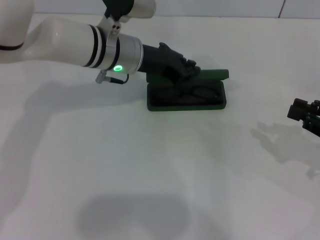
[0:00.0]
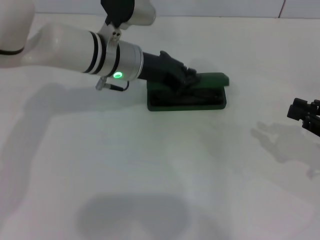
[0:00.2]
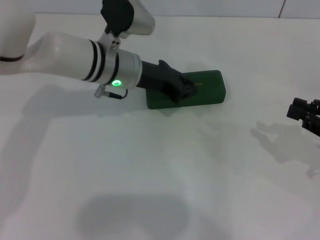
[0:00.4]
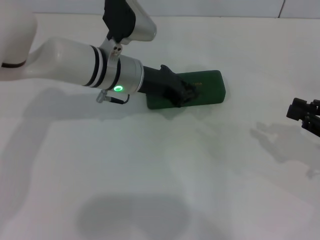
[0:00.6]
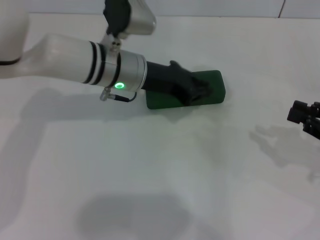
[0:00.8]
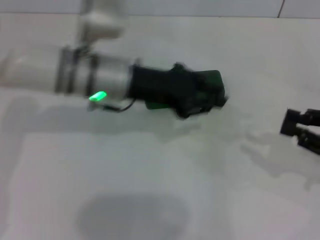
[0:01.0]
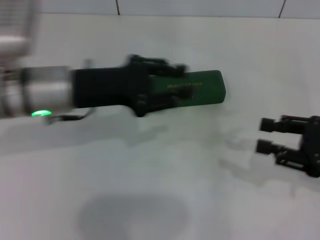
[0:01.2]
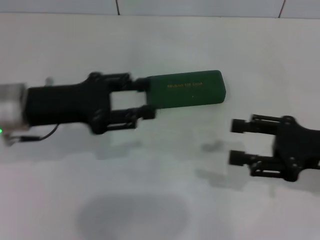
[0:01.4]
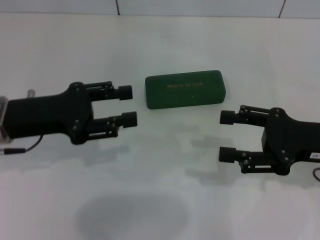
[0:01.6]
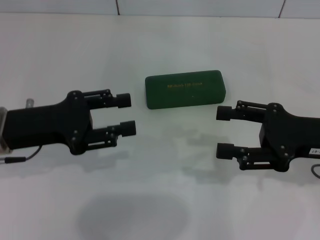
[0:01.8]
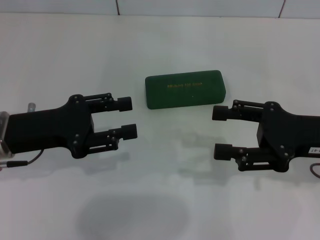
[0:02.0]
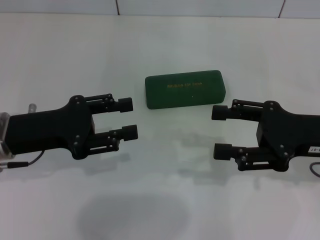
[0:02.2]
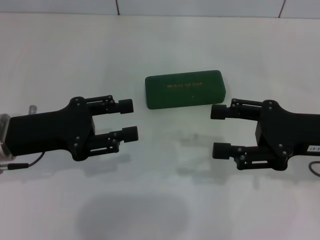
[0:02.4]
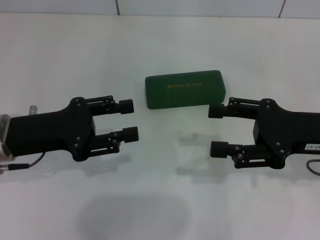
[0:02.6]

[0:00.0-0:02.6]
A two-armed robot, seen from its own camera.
0.0 to 1.2 s: The left gripper travels backward and to the left by some 15 cm.
1.2 to 2.6 s: Both grippers move to the left, about 5 cm. The right gripper opens its fingers.

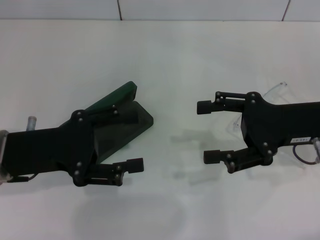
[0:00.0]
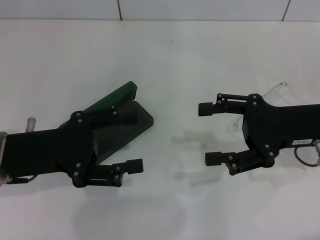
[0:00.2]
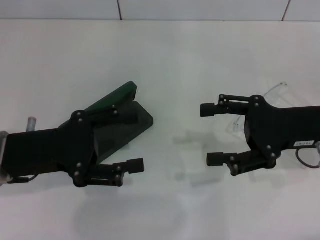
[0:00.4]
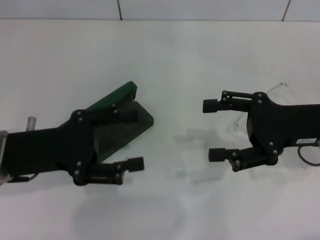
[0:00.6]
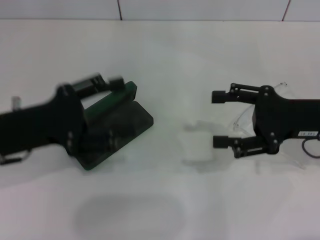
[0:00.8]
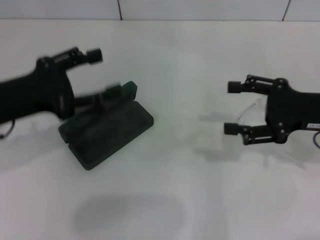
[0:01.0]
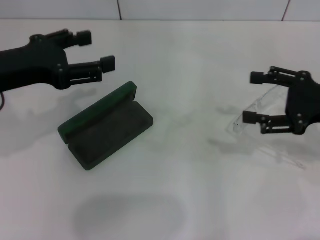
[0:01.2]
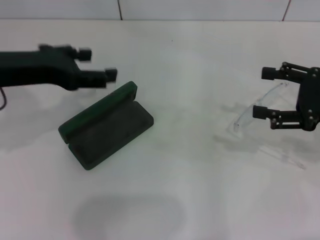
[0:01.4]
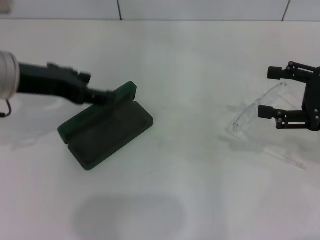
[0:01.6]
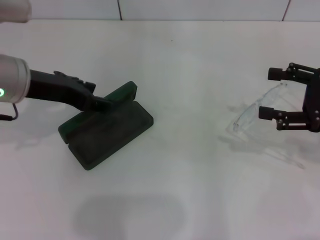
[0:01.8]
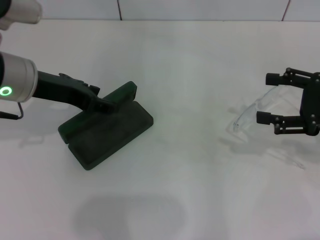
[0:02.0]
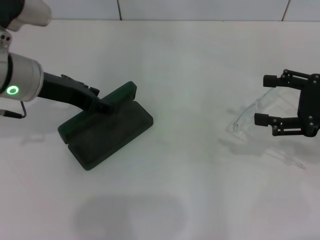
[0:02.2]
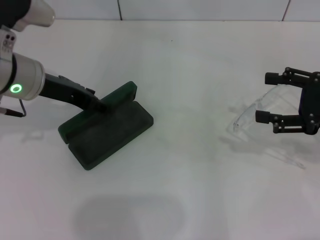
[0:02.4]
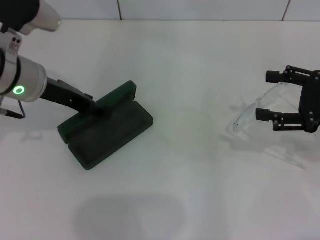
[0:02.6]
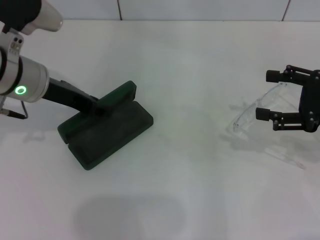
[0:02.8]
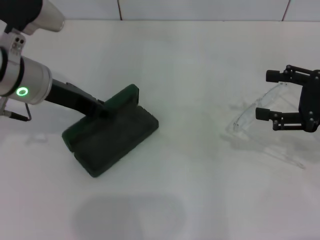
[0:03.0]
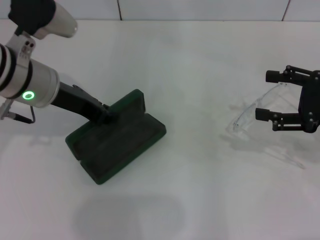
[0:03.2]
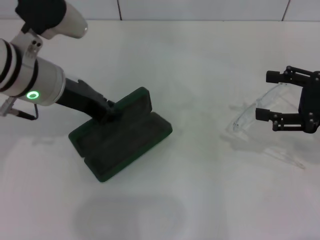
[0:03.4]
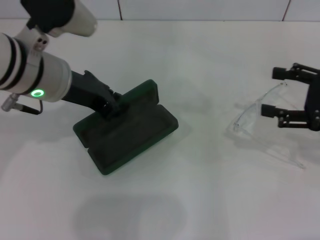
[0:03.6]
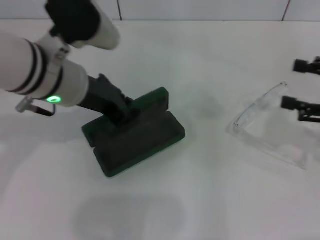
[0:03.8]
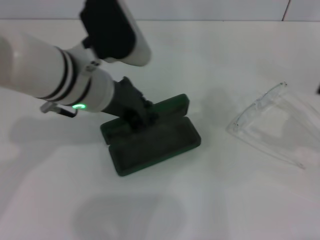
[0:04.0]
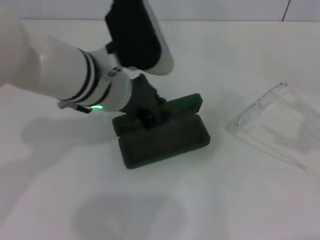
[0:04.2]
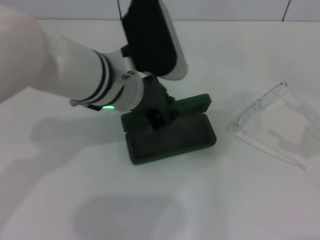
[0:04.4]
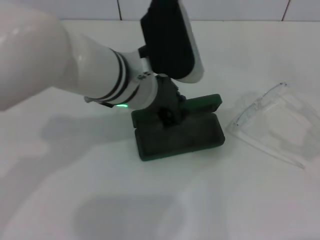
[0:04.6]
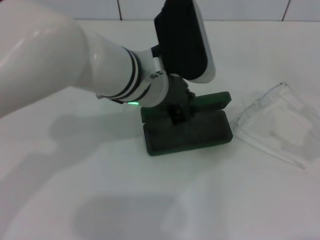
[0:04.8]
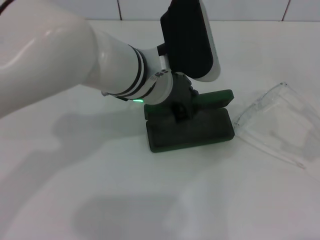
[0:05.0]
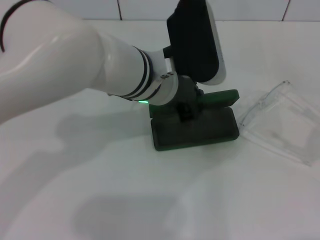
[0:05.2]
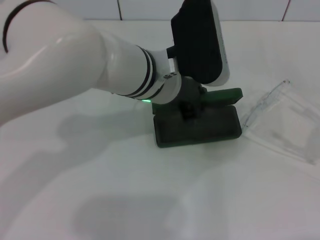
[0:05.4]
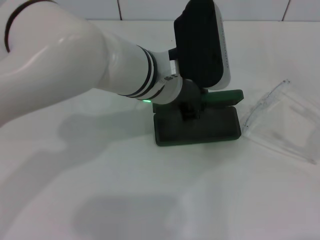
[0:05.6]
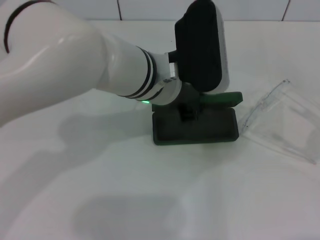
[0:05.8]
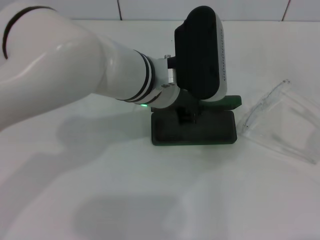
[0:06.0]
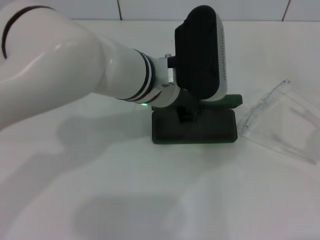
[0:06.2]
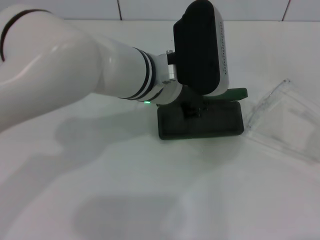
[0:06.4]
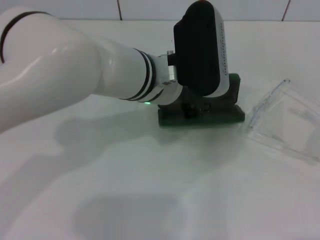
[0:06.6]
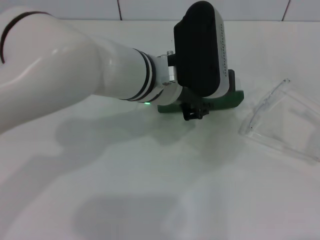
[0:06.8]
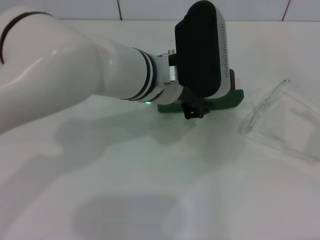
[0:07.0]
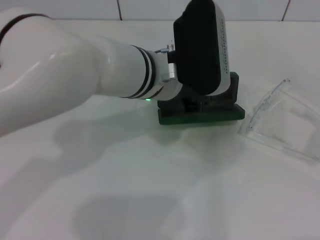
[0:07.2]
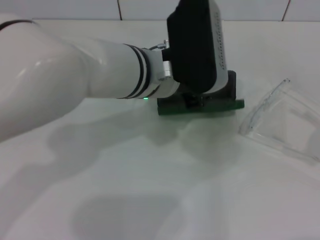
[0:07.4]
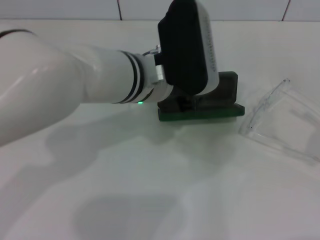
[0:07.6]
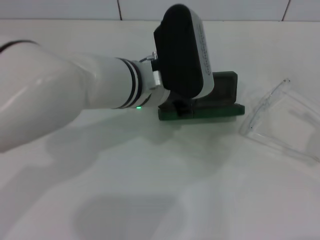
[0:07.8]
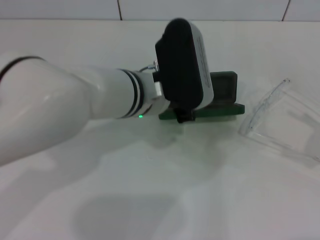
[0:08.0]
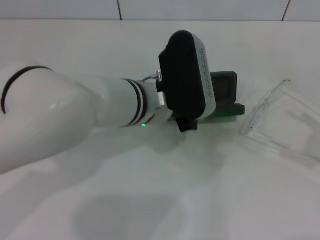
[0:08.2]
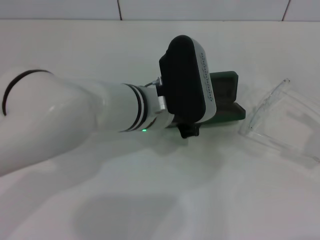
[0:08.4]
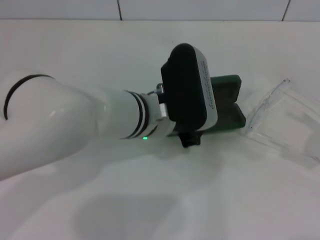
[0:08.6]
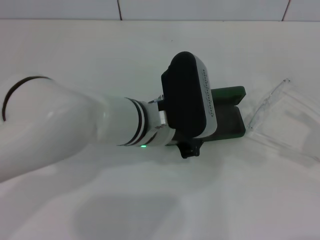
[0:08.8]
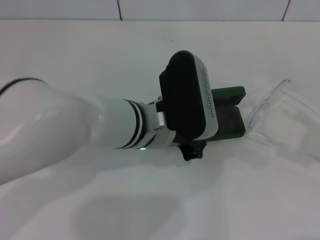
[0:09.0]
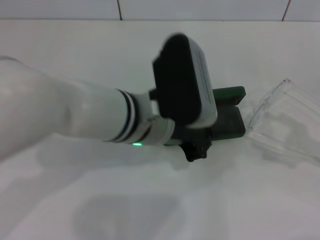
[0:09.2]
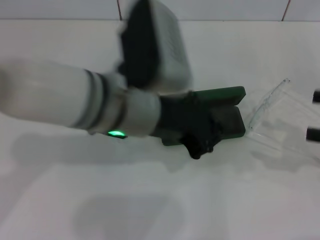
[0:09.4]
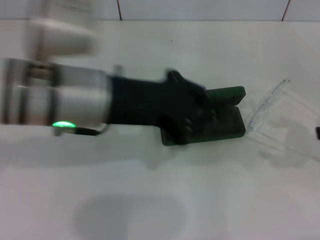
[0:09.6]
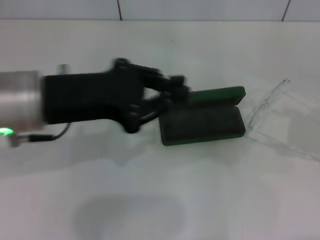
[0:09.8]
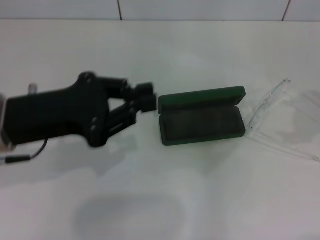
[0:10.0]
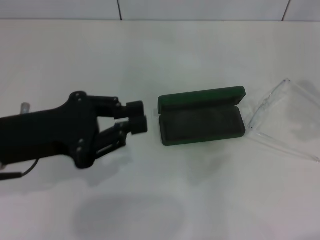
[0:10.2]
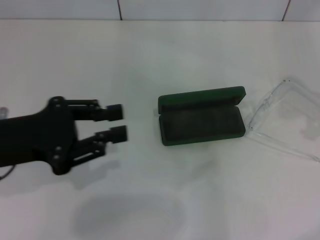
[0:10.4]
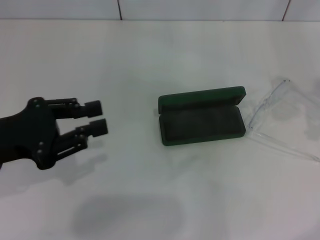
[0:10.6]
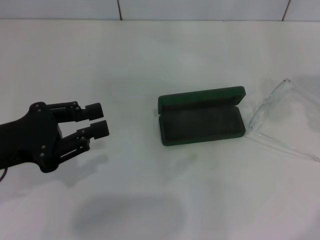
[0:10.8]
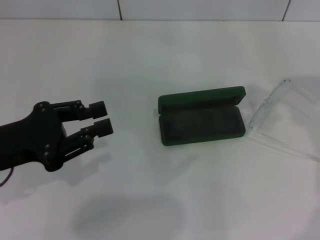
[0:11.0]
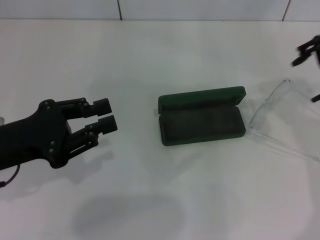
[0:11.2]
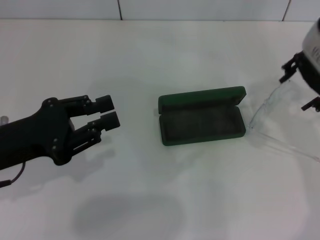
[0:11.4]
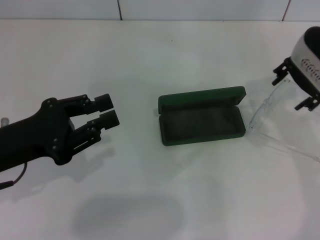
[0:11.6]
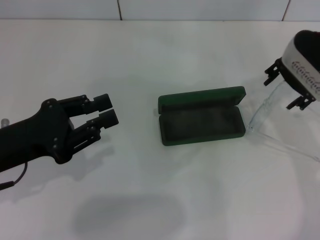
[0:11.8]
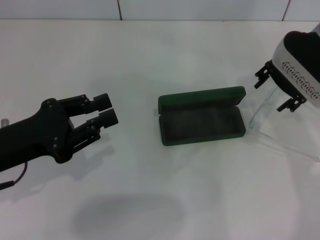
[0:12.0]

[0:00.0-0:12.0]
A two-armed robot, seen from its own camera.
Step, 0.0 to 2.8 s: Grab the glasses case with your left hand.
Step, 3.0 to 7.2 s: Place the glasses case in the center of the table with your left hand.
0.0 to 1.6 s: The left gripper travels upward and forward by some 10 cm. The right gripper moves to the right, about 10 cm.
1.6 to 3.0 s: The left gripper ends up roughly 5 cm from where it was, and closes.
3.0 to 4.4 s: The right gripper travels to the right and backward by approximately 10 cm. Meanwhile the left gripper goes roughly 10 cm to the right, and closes its fingers.
6.0 to 7.6 s: The grippers move only a little.
7.6 to 9.0 s: The left gripper changes place by roughly 5 cm.
9.0 to 10.4 s: The right gripper moves upward and forward, roughly 20 cm. The left gripper is displaced to the left by approximately 20 cm.
10.4 to 12.0 s: The right gripper goes about 20 cm to the left, downward and forward.

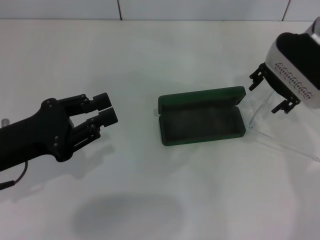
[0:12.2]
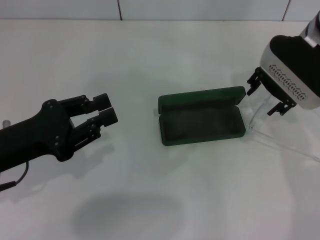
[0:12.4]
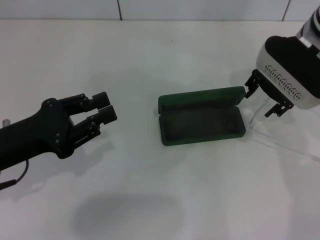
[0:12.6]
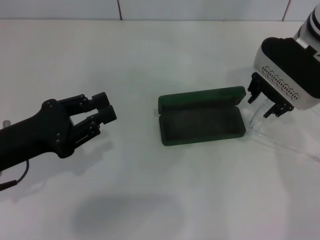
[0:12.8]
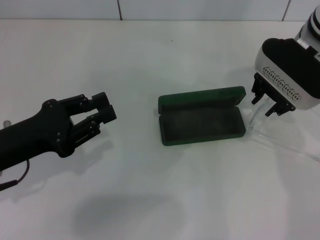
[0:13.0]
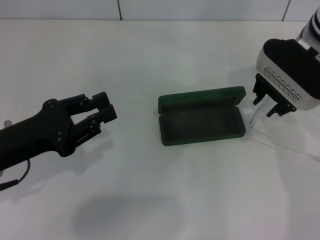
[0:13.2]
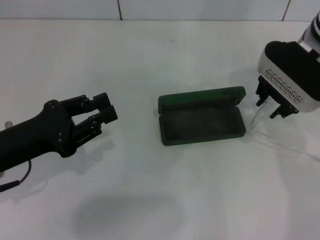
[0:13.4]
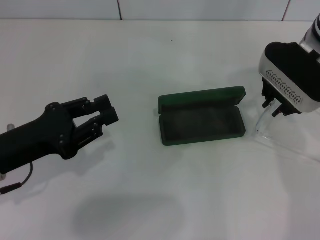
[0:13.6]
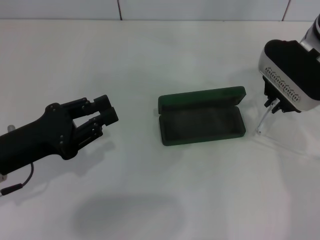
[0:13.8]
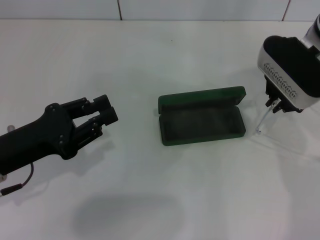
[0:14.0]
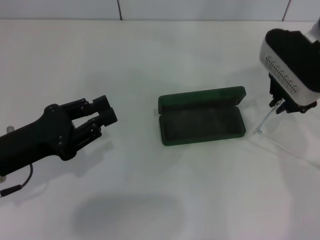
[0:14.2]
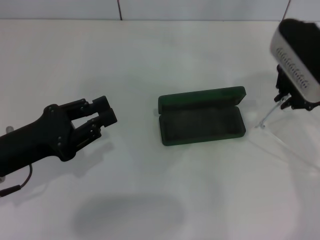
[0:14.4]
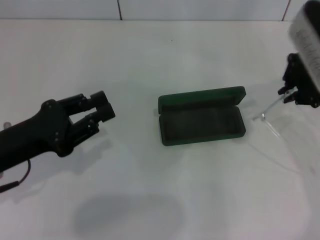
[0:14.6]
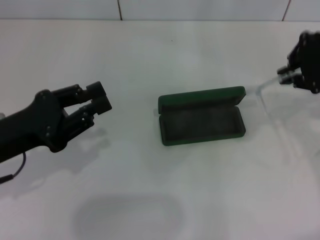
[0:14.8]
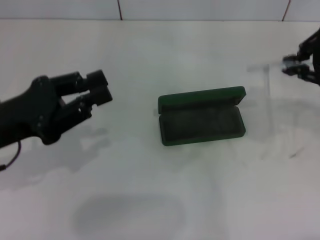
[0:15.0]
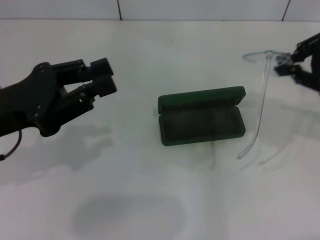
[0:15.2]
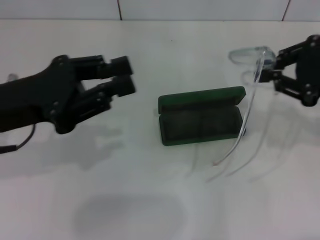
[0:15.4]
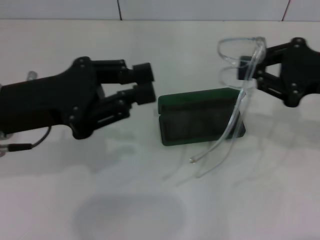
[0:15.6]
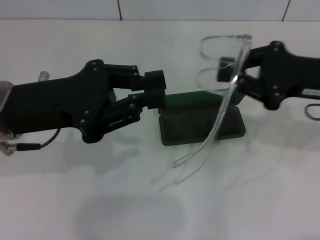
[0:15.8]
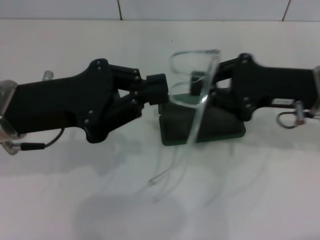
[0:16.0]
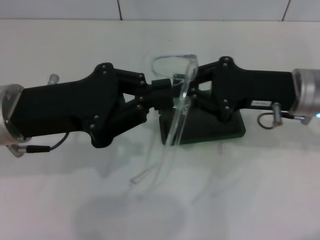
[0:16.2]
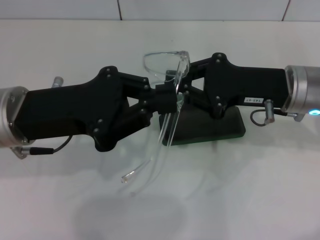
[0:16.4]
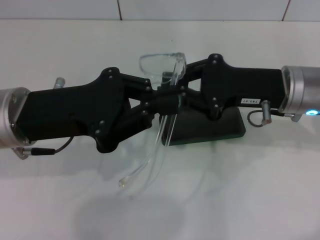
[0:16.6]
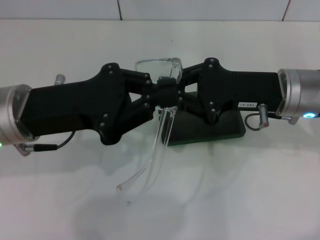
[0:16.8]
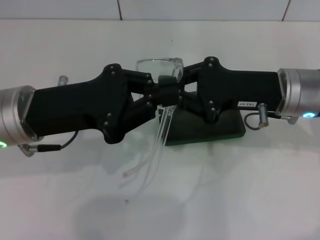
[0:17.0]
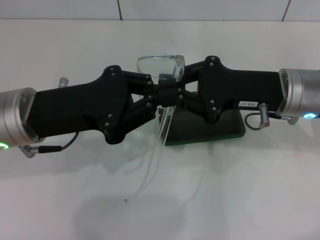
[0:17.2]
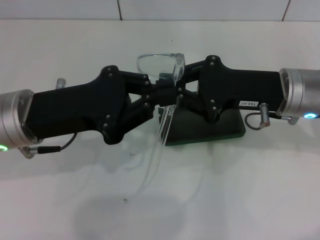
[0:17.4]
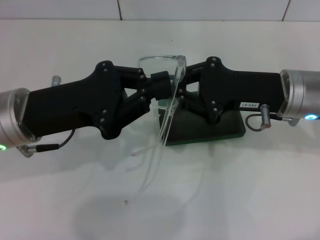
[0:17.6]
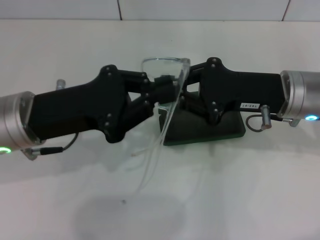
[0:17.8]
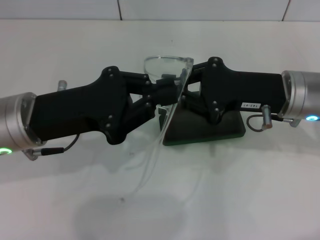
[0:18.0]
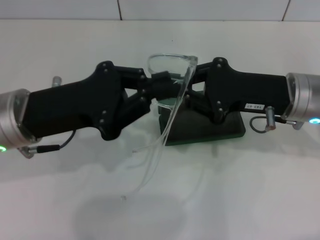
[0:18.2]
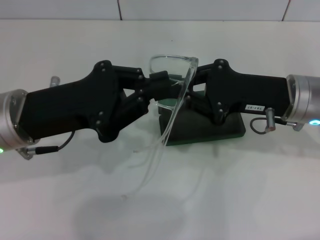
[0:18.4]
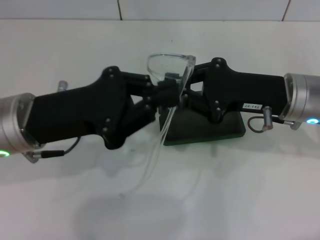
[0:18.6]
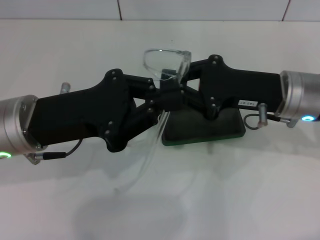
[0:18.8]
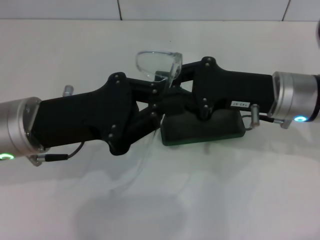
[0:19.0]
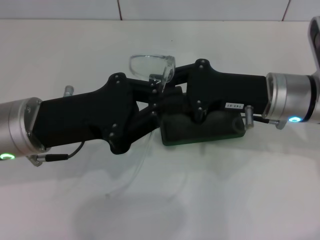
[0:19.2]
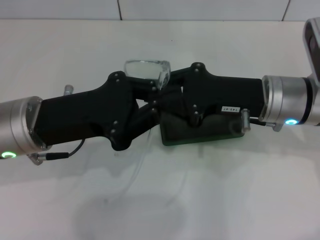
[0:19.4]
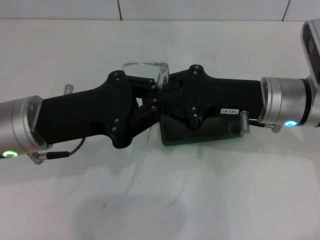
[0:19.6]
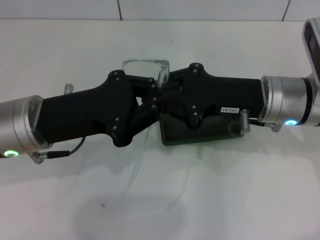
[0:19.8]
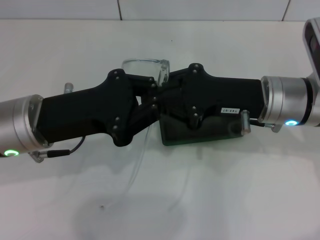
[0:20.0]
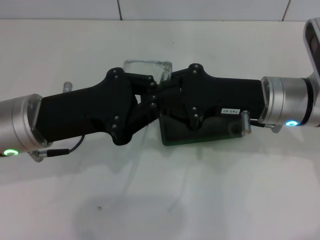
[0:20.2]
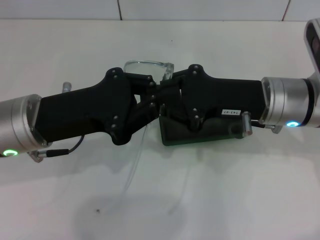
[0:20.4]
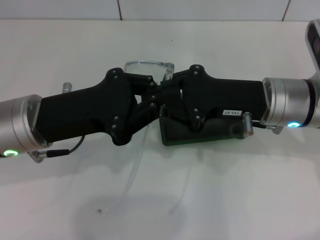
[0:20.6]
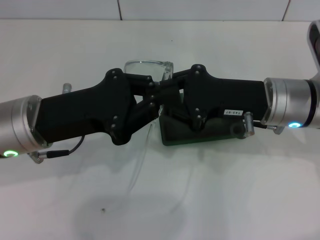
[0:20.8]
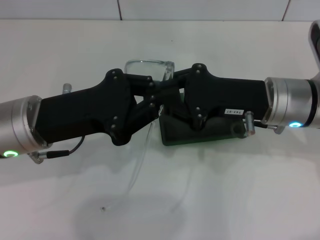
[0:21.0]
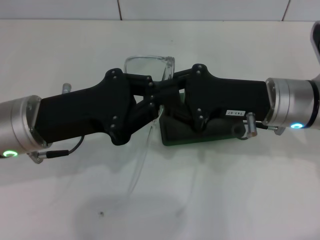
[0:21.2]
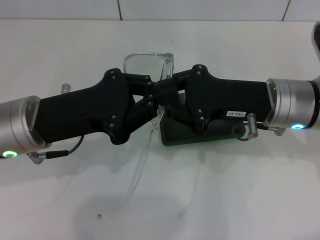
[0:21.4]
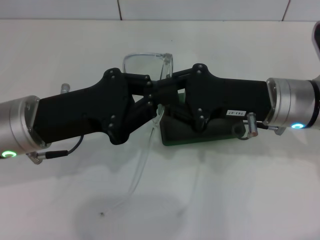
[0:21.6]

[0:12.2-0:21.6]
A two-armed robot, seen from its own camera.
12.2 to 13.8 s: The right gripper closes its fingers.
13.8 to 15.4 s: The right gripper heads backward and to the right, covering approximately 15 cm; the left gripper moves upward, roughly 10 cm.
15.4 to 17.0 s: The right gripper shifts some 10 cm to the left and downward.
17.0 to 20.0 s: The grippers make only small movements.
20.0 to 21.6 s: Neither gripper changes place.
